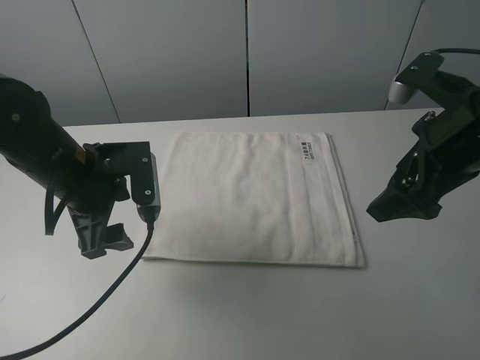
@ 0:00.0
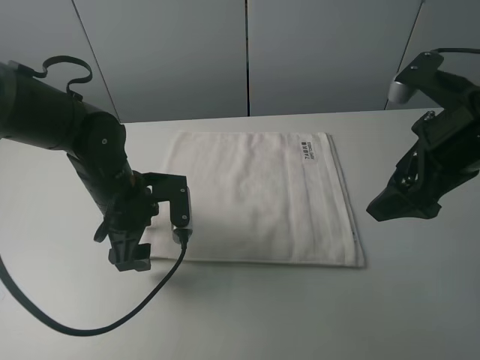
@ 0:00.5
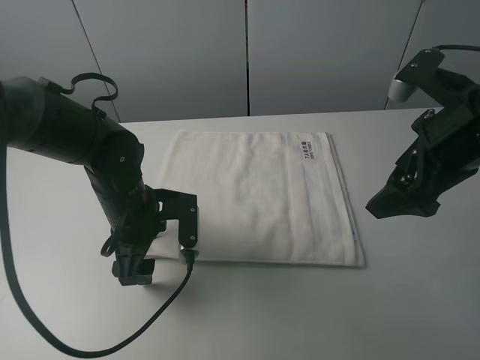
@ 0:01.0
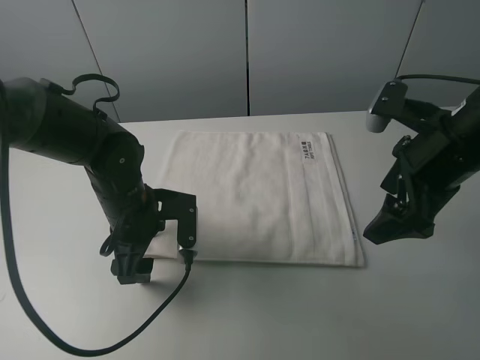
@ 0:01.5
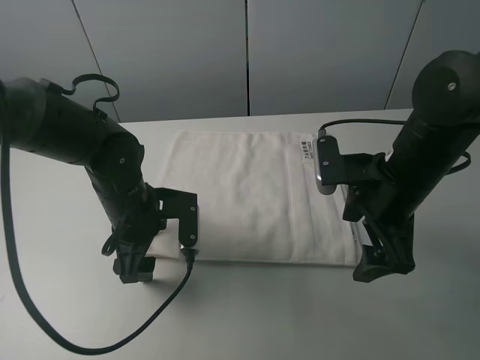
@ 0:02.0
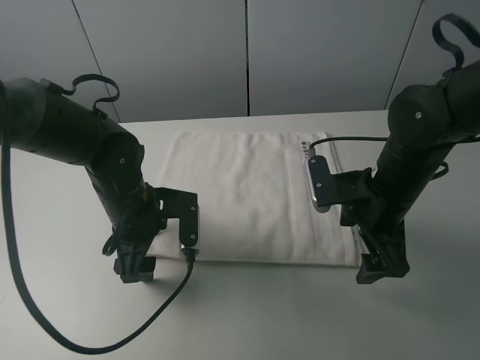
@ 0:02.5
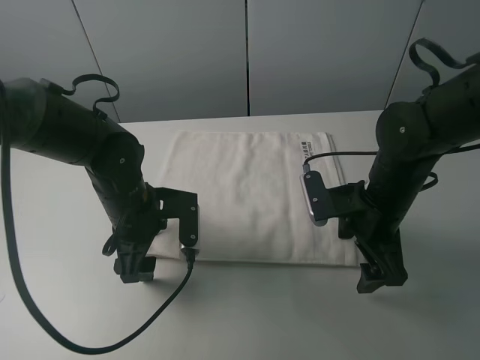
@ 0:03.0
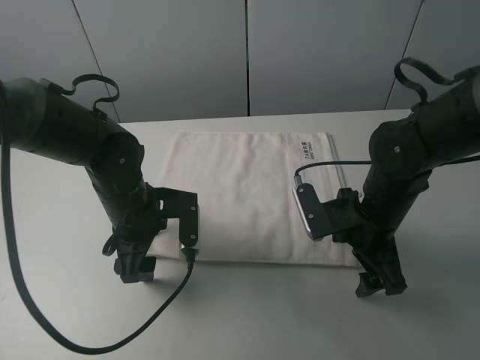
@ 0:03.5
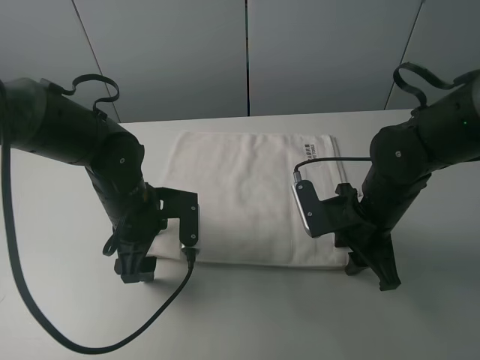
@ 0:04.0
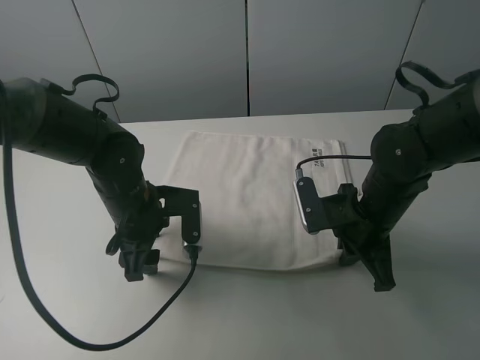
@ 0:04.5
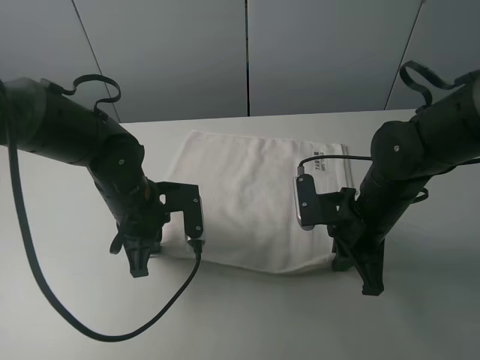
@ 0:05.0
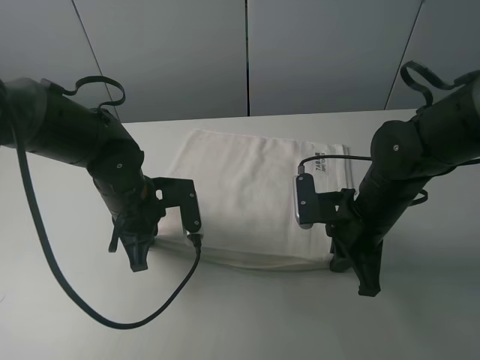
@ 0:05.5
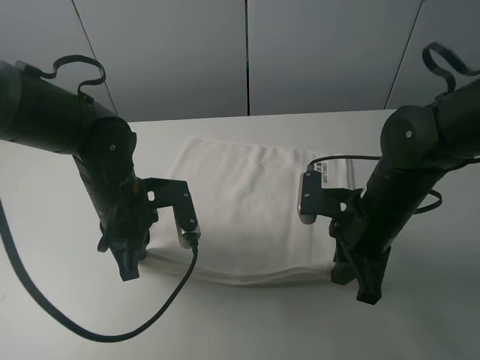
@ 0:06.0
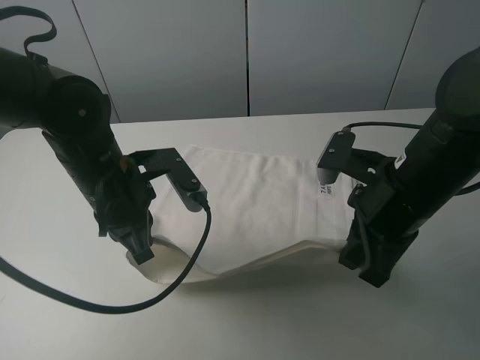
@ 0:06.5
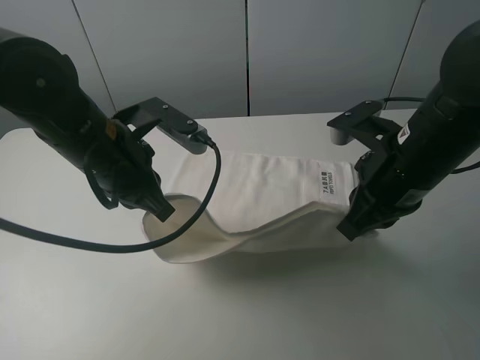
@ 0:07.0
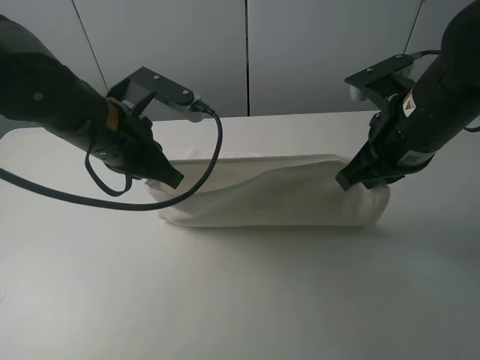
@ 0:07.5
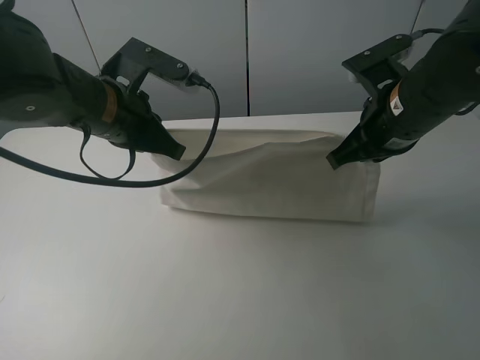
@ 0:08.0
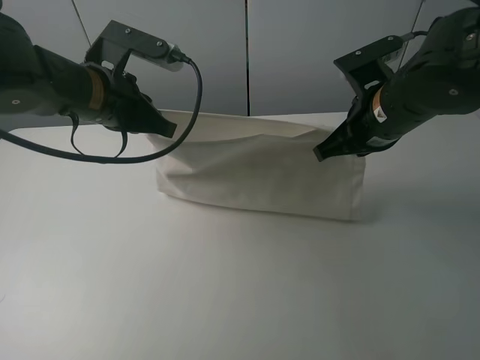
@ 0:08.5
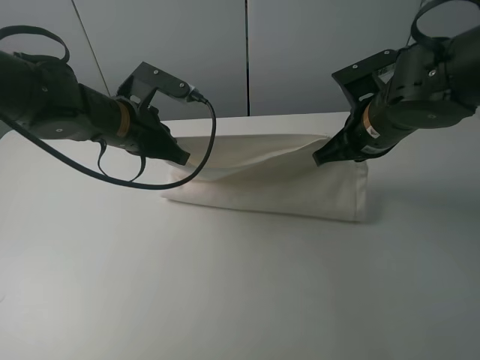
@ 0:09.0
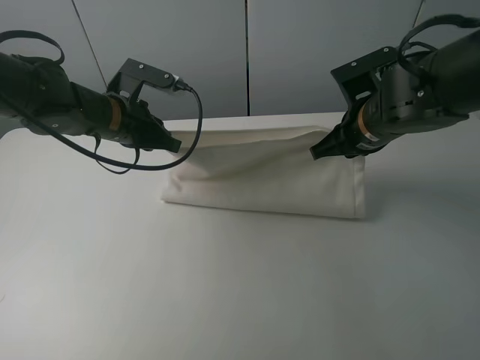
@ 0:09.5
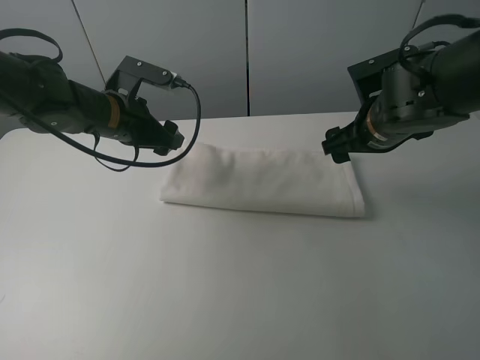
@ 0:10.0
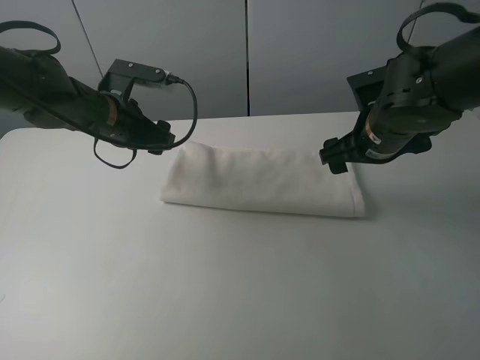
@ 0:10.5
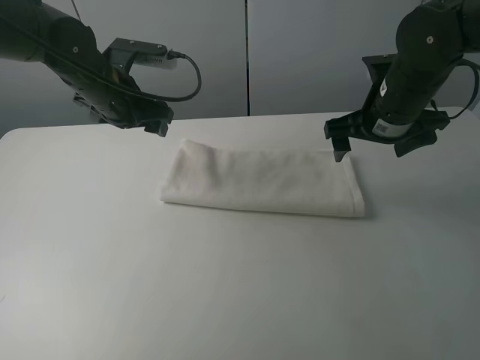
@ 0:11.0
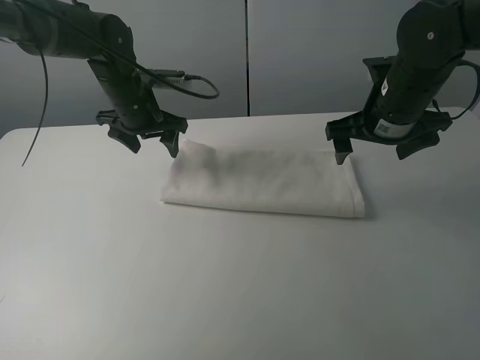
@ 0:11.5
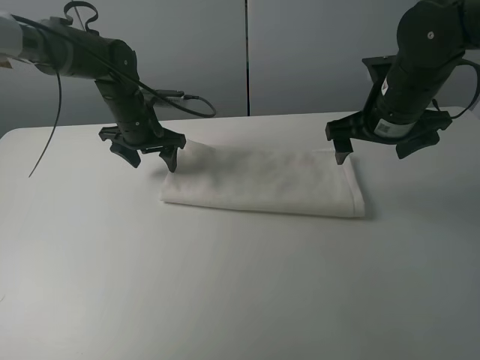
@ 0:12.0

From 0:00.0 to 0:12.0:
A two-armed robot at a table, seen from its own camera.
Task of the whole recording: fold the towels on the table.
Step, from 0:00.0 to 0:04.0: Grasp the white towel with the right gripper.
Step, from 0:04.5 to 0:05.0: Grasp the white towel with the left gripper.
Step, from 0:05.5 to 0:10.0: Fold the white towel upwards with the right gripper.
From 0:00.0 to 0:02.0: The right gripper travels downward and to the left by roughly 10 cm; the left gripper moves downward, some 5 cm.
From 0:02.0 to 0:04.0: The right gripper goes roughly 5 cm downward, and closes up.
From 0:04.0 to 0:06.0: The left gripper closes up.
From 0:06.0 to 0:08.0: The left gripper travels upward by about 10 cm, while the right gripper heads upward and forward, covering approximately 10 cm.
From 0:08.0 to 0:10.0: The right gripper ends up approximately 5 cm from where it was, and opens, while the left gripper heads forward and downward, covering roughly 10 cm, and opens.
From 0:10.0 to 0:12.0: The left gripper shifts about 10 cm forward.

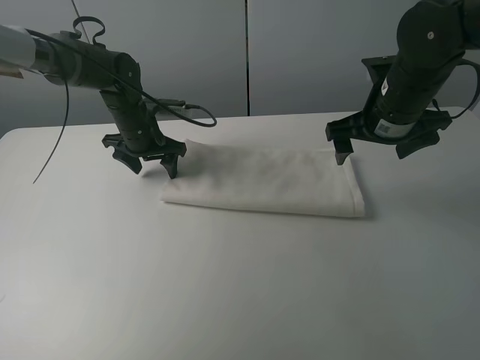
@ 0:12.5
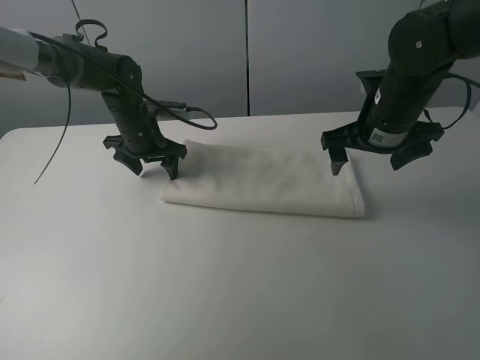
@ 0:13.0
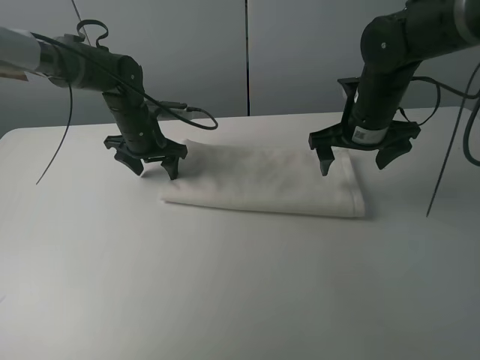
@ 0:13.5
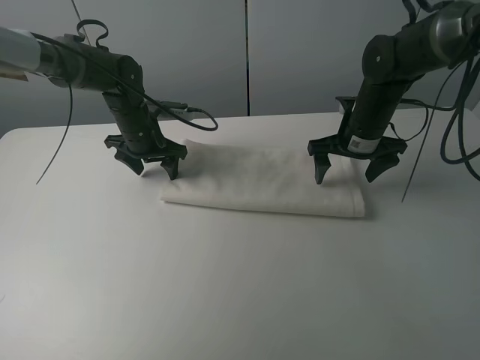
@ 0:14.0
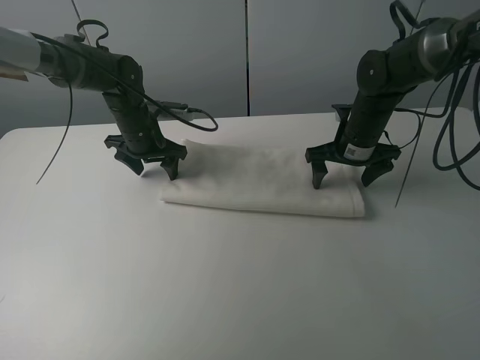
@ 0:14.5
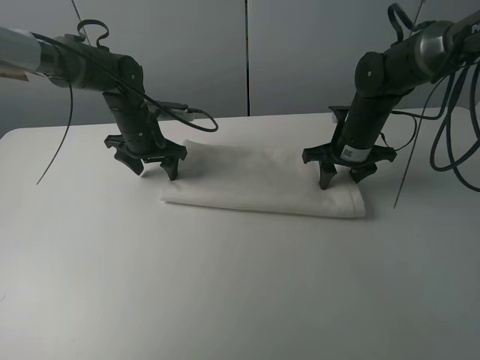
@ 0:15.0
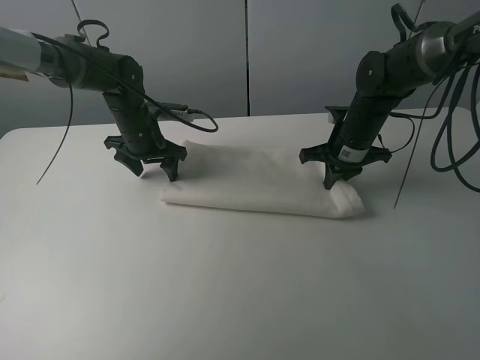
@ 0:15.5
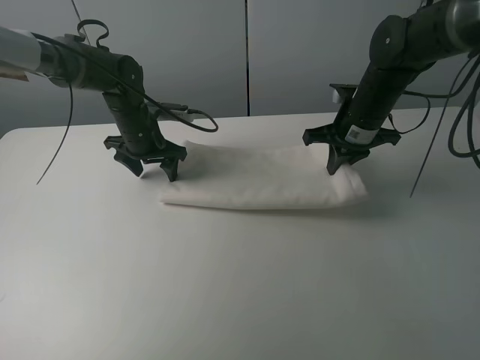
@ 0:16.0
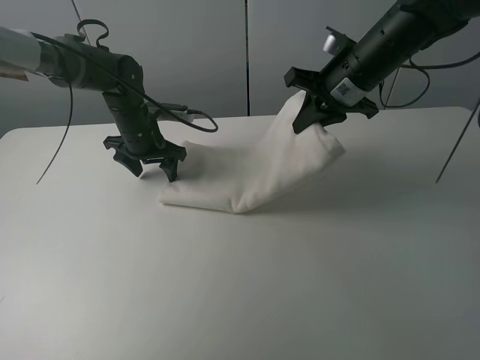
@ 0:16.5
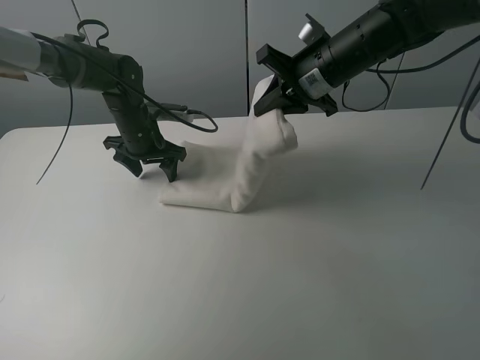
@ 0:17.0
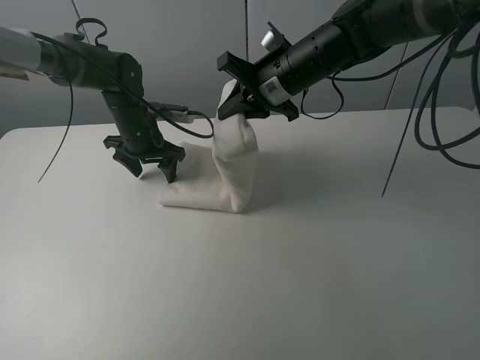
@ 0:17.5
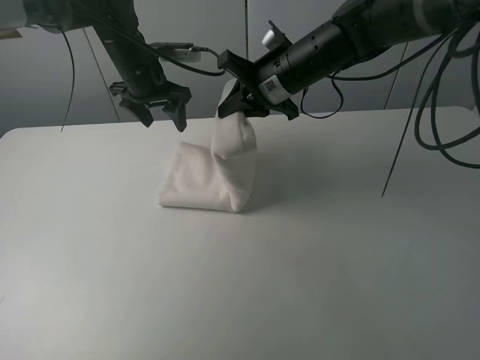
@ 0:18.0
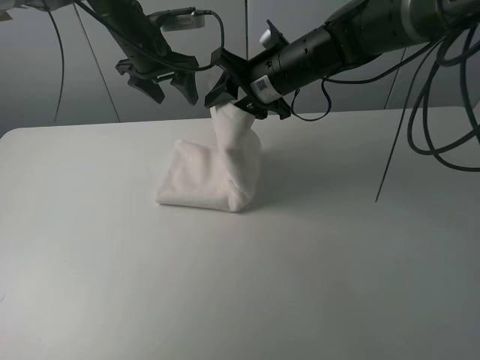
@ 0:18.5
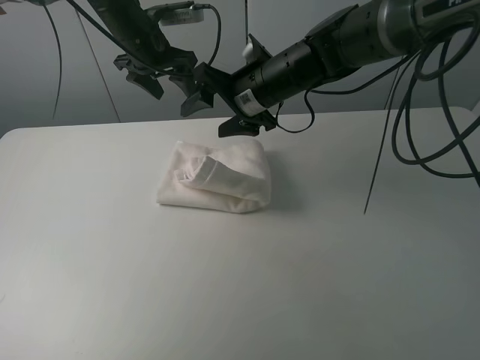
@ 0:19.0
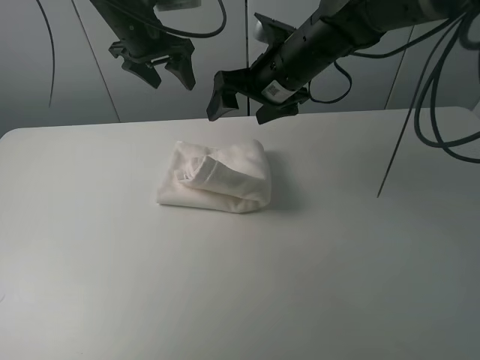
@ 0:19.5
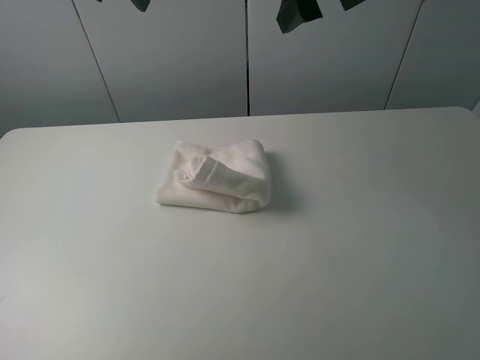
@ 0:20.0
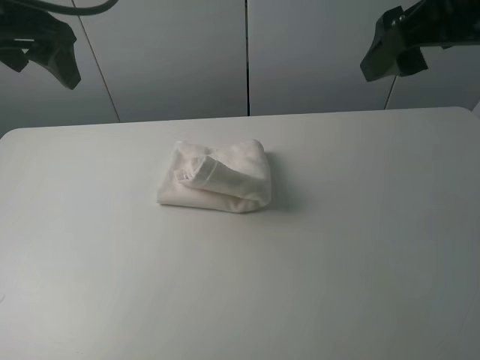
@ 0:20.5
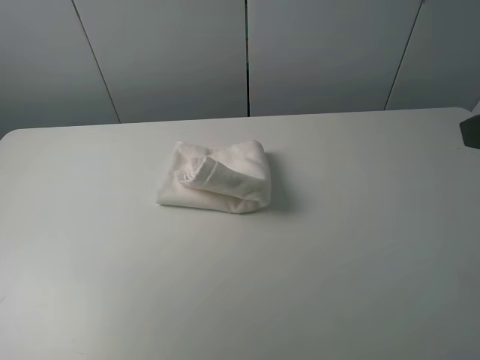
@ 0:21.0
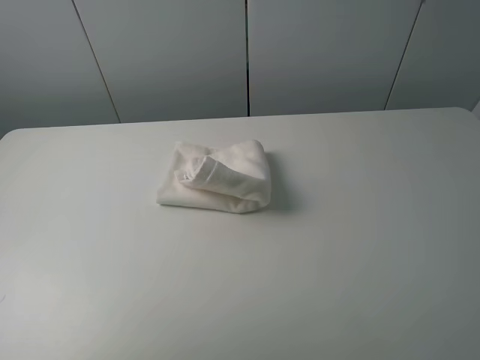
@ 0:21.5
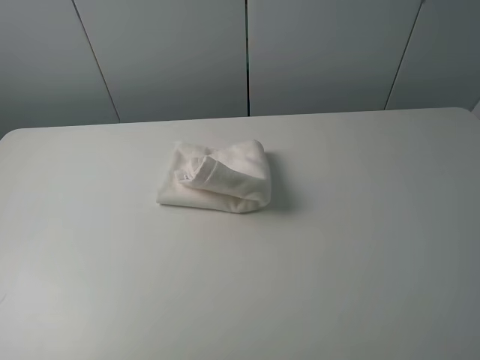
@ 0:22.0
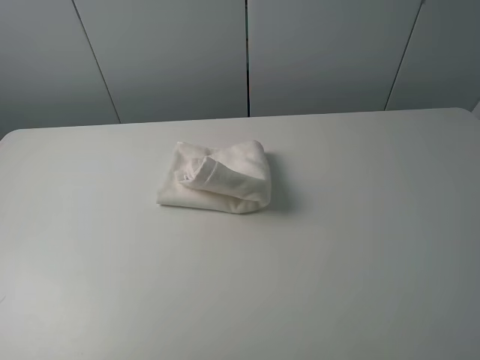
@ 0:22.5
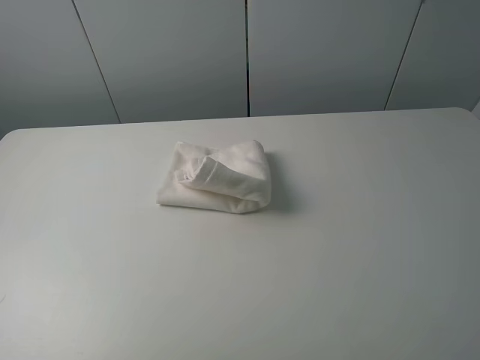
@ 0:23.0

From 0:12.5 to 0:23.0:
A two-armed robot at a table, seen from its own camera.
Task of the whole recording: fold the towels on the table.
Step, from 0:12.5 to 0:18.5: Fold the white towel from right to left with right gripper.
From 0:12.5 to 0:14.5: The right gripper shifts approximately 10 cm downward and forward.
From 0:14.5 to 0:16.5: The right gripper shifts about 10 cm upward, and closes.
From 0:16.5 to 0:19.0: The right gripper is displaced to the left by about 10 cm, and opens its fingers, while the left gripper shifts roughly 15 cm upward.
From 0:19.0 to 0:21.0: The right gripper shifts some 40 cm backward, to the right and upward. The left gripper shifts roughly 35 cm backward and to the left.

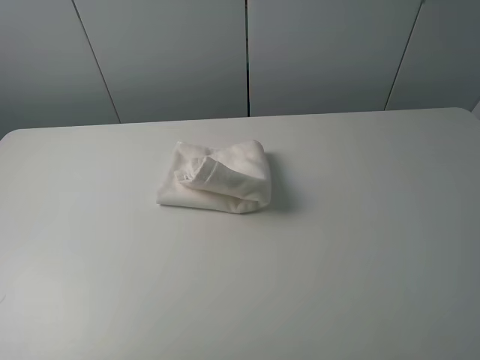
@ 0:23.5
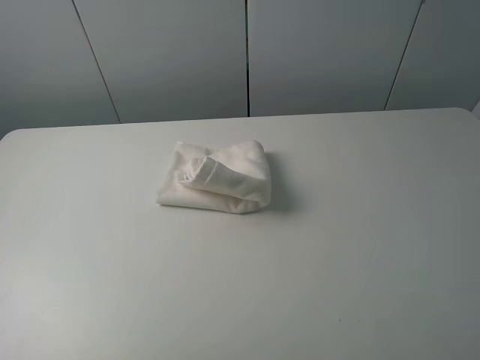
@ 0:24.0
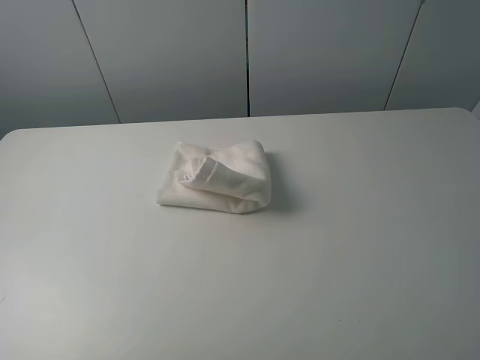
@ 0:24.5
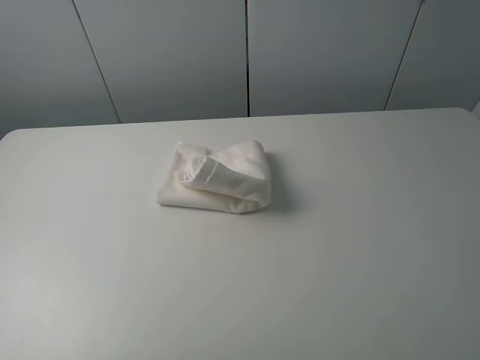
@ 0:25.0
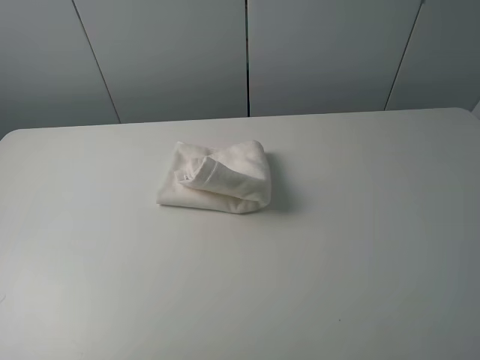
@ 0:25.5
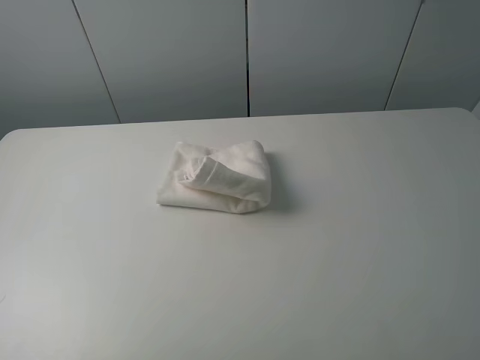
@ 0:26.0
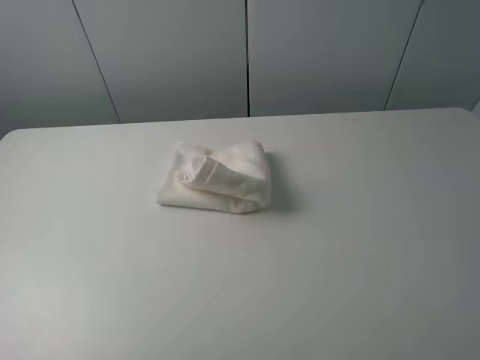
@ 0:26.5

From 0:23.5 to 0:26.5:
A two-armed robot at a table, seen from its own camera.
Task of the whole recording: fold the towels on the table.
From 0:23.5 to 0:26.5: Both grippers stay put.
